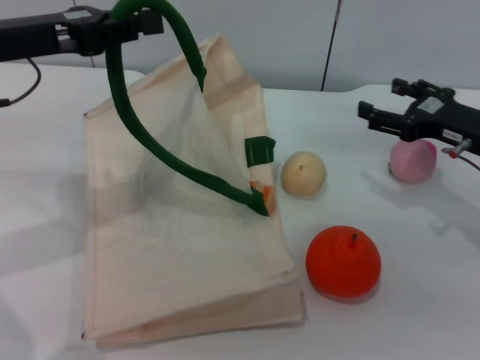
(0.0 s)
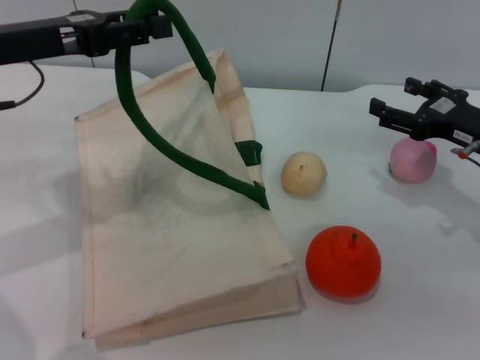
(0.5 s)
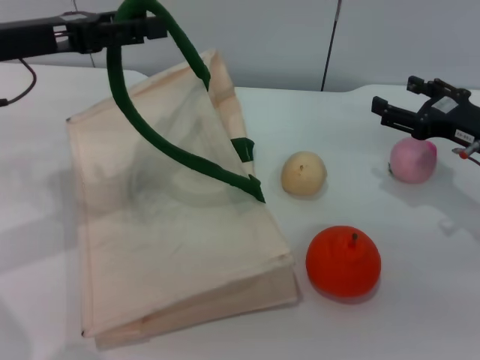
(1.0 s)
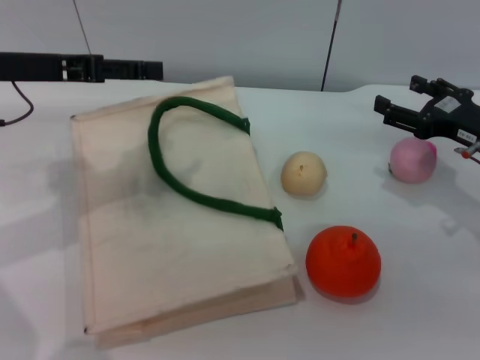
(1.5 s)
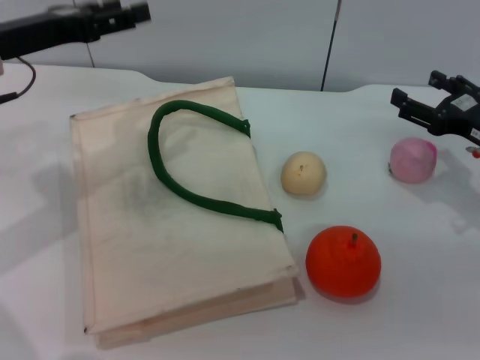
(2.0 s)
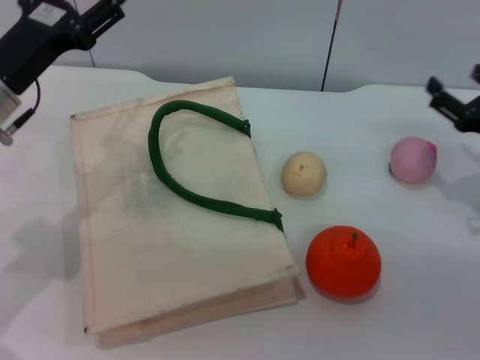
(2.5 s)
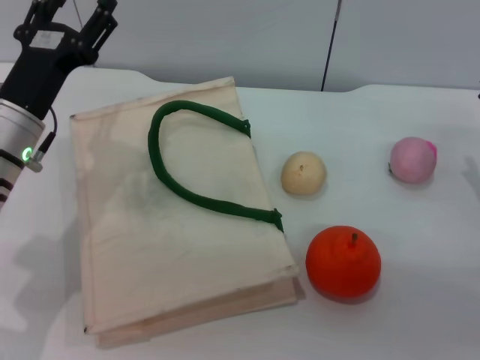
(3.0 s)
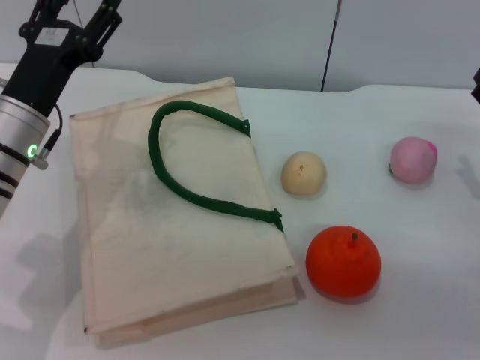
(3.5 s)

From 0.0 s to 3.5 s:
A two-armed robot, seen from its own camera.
Task of the whole recording: pick up the bread from the table and place it in the white handbag.
Step, from 0.0 s to 1.5 s: Lower the woven bag with the left gripper to close it.
From 0.0 s to 2.0 s: The left gripper opens its fingers.
From 2.0 s to 3.5 s: The left gripper is displaced downward and to the right by some 10 cm.
